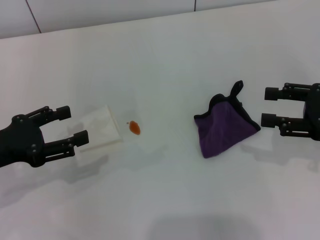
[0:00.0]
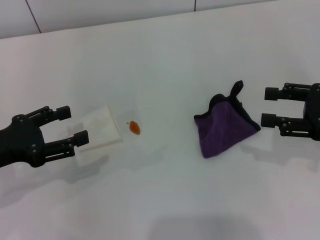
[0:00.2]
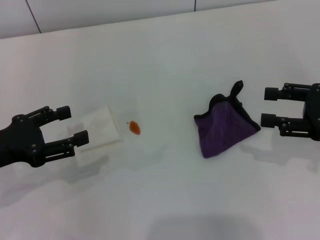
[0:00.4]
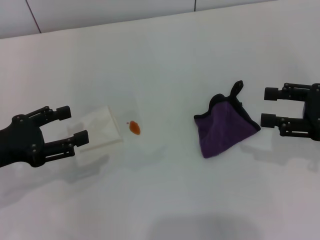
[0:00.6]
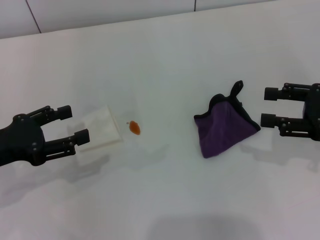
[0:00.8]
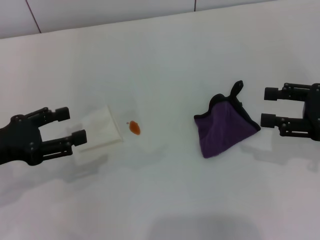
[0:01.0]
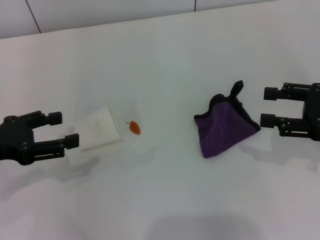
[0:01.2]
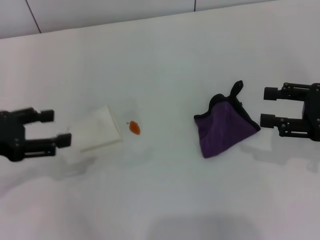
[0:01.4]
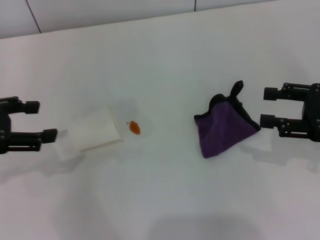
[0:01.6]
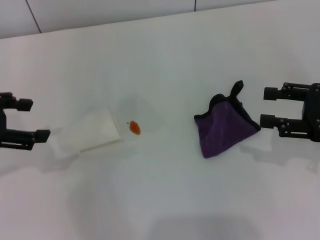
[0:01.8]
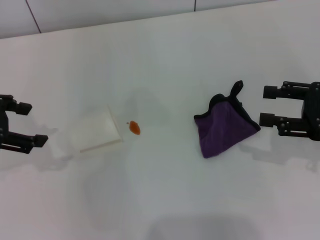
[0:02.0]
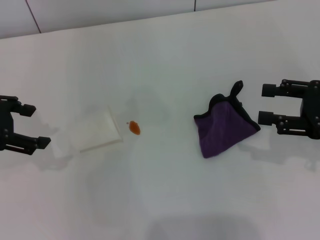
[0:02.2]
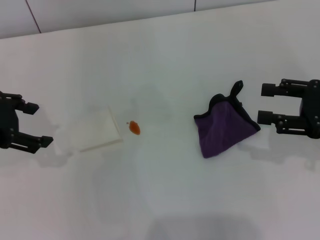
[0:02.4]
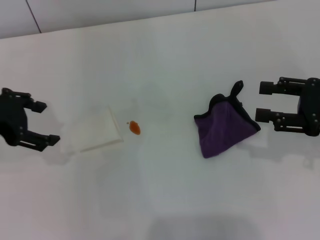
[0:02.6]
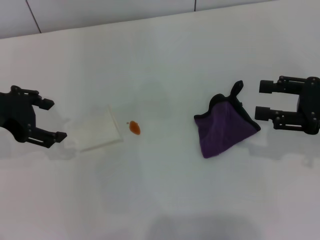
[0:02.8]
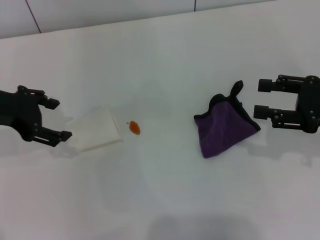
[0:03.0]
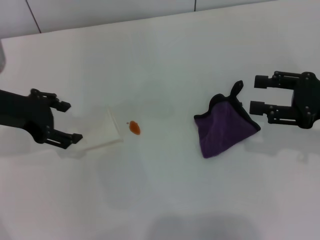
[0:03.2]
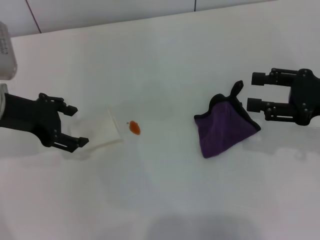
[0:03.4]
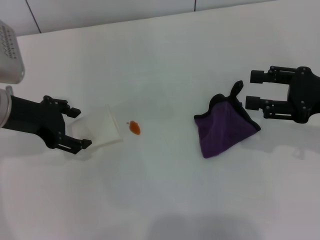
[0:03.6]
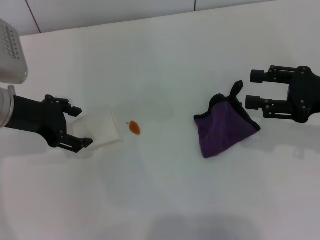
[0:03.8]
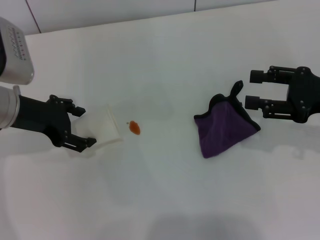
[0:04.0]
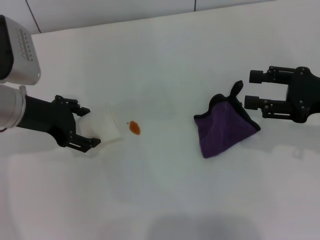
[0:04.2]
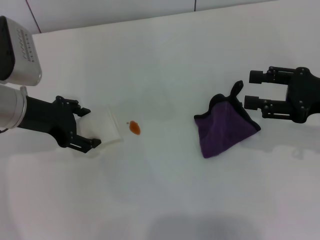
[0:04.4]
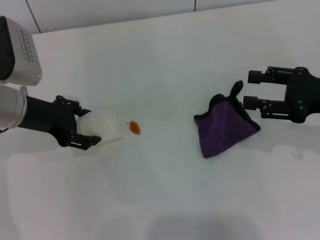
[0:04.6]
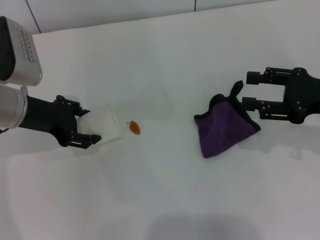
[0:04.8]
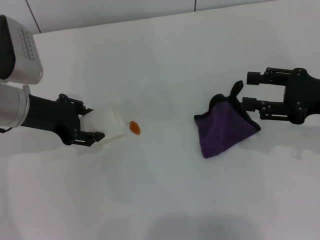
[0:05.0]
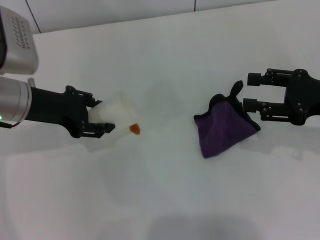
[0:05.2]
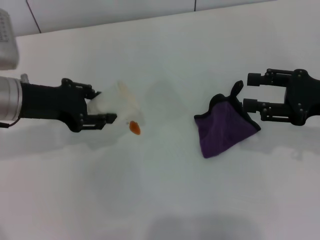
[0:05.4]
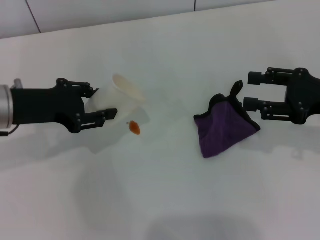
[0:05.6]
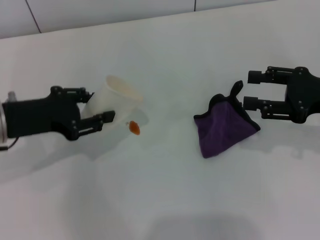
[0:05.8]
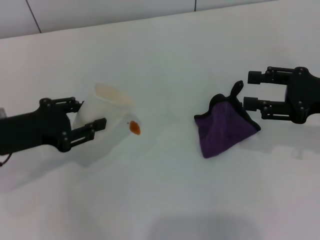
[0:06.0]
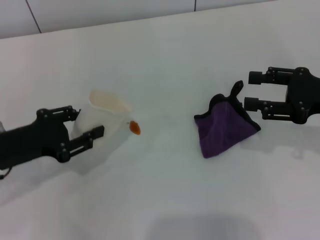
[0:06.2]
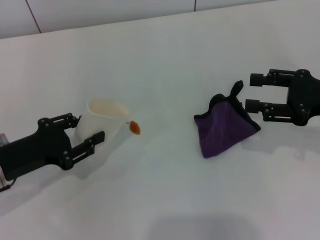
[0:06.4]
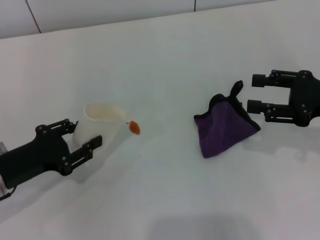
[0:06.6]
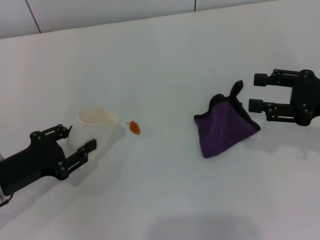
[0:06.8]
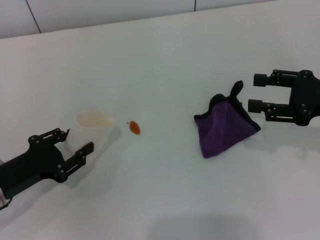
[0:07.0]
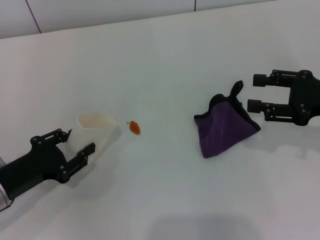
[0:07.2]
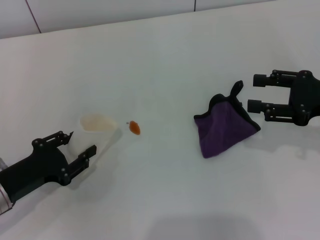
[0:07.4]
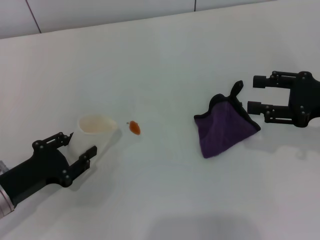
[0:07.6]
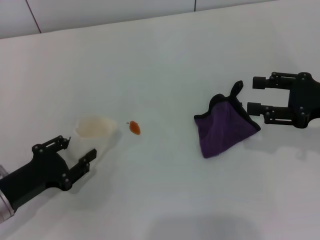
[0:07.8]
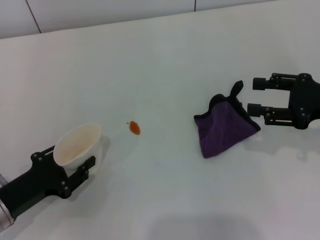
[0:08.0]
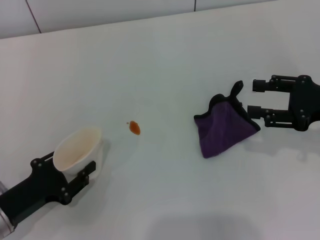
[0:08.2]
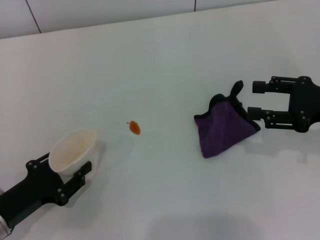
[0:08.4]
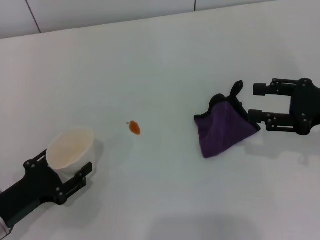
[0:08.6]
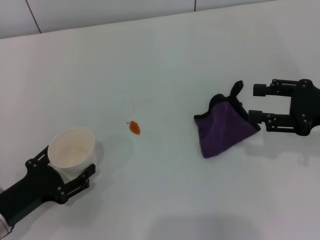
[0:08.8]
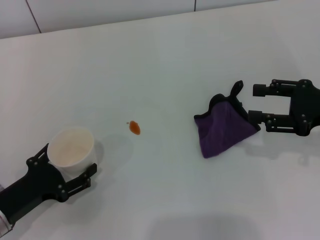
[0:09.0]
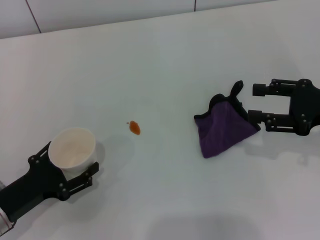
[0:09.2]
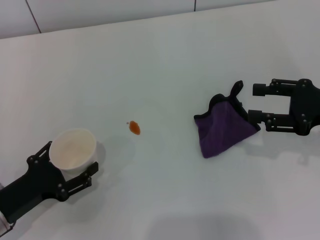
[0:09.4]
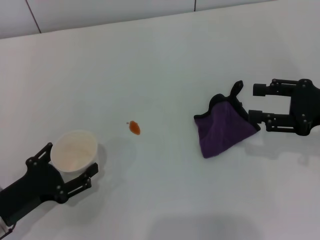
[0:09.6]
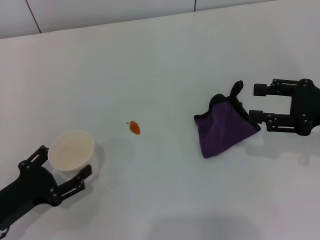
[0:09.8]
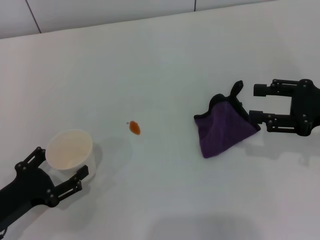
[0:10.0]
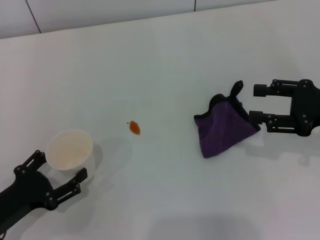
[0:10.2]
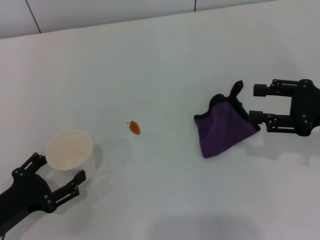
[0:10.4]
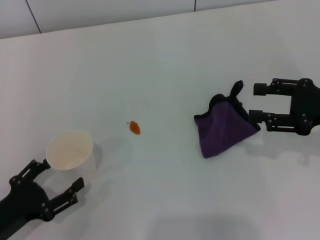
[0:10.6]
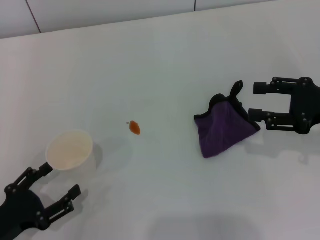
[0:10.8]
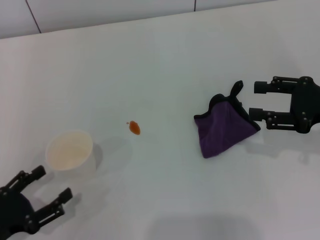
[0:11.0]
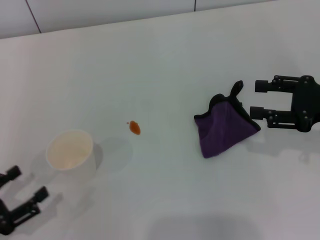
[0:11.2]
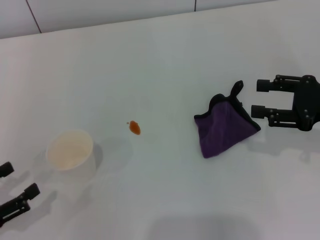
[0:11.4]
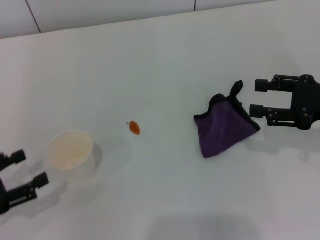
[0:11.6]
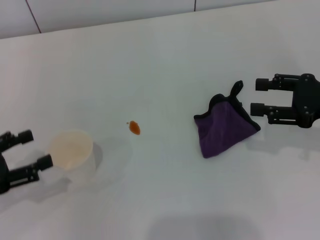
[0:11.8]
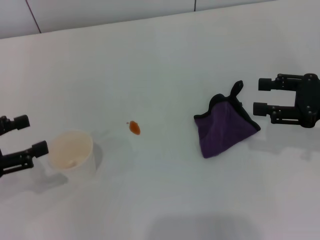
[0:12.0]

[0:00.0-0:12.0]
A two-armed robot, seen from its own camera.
Step, 0:00.0 to 0:04.8: Grasp the paper cup with the left gripper.
Step, 0:05.0 to 0:10.6: Stand the paper cup upright with the left gripper.
0:00.0 to 0:01.6: The left gripper shifts roughly 5 cm upward.
0:01.6 to 0:03.0: The left gripper is displaced forward and to the right by approximately 10 cm.
0:03.0 to 0:04.4: The left gripper moves about 5 cm.
0:04.4 to 0:06.0: The left gripper shifts approximately 5 cm backward, and closes.
0:06.0 to 0:07.6: The left gripper goes approximately 10 cm downward and backward.
0:07.6 to 0:09.0: The left gripper opens.
0:09.0 to 0:10.4: There are only small adjustments of the grippers.
0:10.4 to 0:12.0: The left gripper heads upward, forward and to the left, covering about 15 cm.

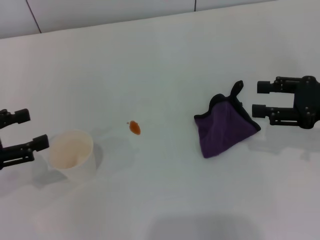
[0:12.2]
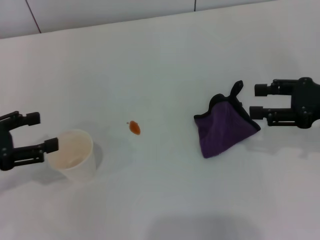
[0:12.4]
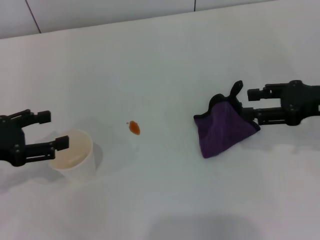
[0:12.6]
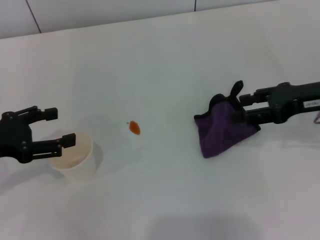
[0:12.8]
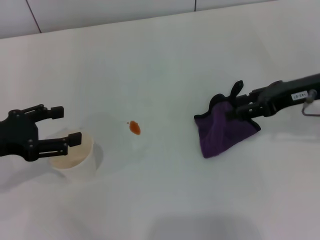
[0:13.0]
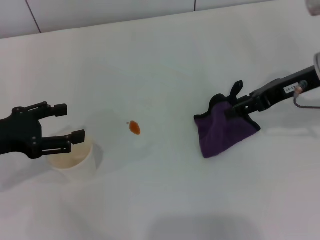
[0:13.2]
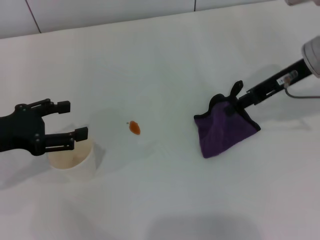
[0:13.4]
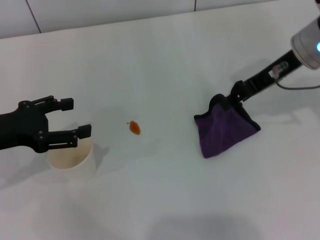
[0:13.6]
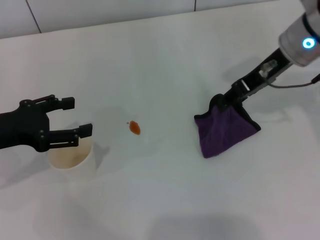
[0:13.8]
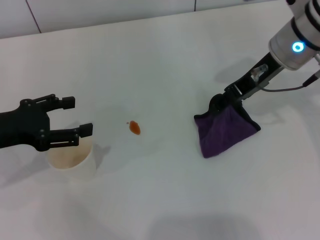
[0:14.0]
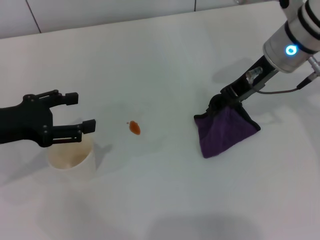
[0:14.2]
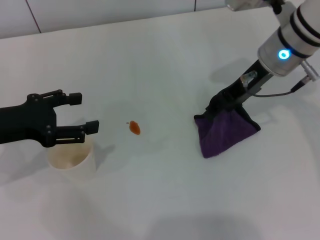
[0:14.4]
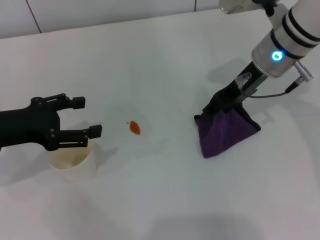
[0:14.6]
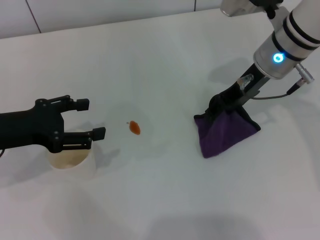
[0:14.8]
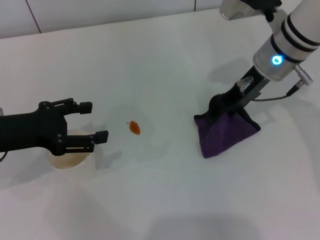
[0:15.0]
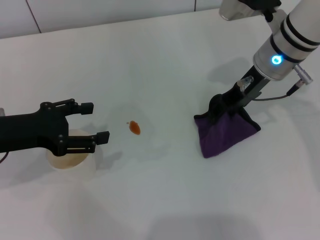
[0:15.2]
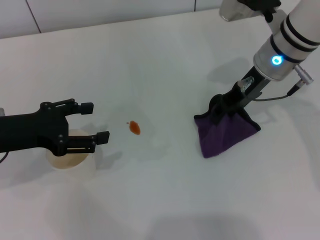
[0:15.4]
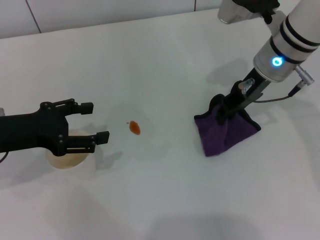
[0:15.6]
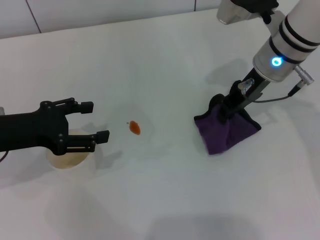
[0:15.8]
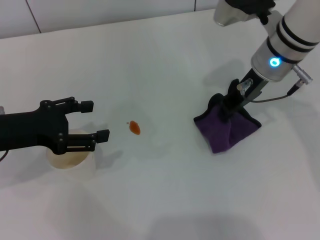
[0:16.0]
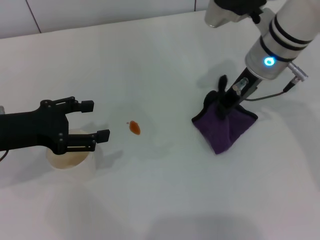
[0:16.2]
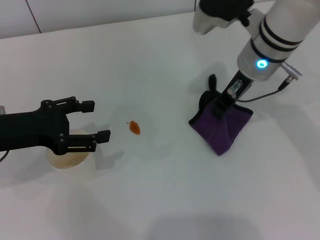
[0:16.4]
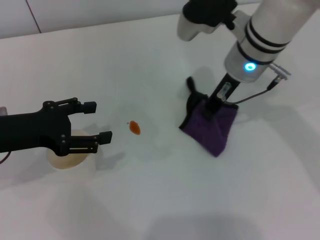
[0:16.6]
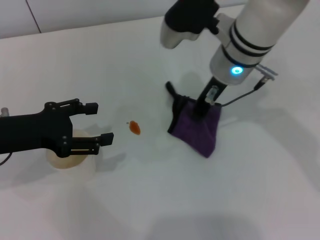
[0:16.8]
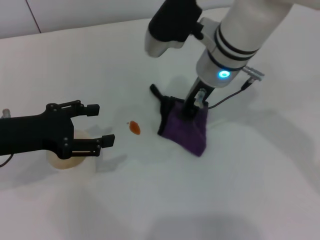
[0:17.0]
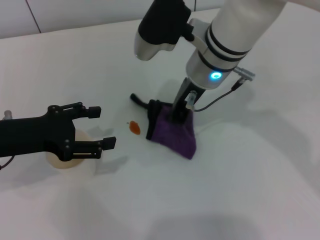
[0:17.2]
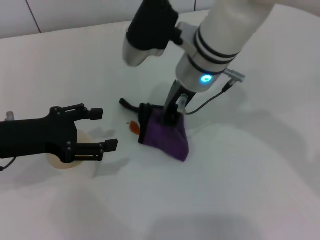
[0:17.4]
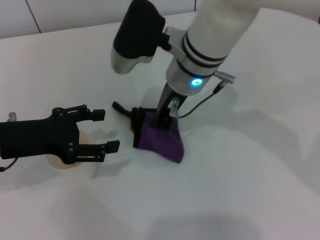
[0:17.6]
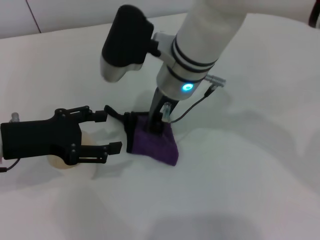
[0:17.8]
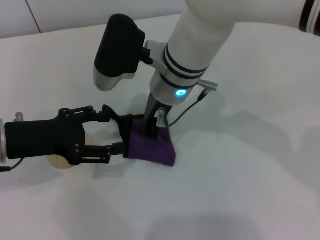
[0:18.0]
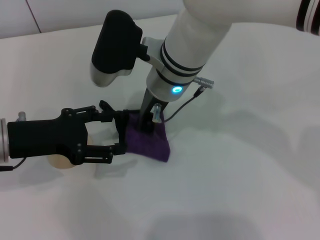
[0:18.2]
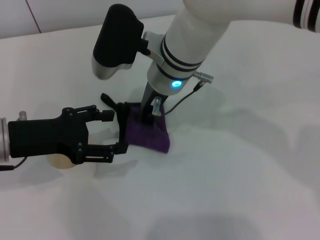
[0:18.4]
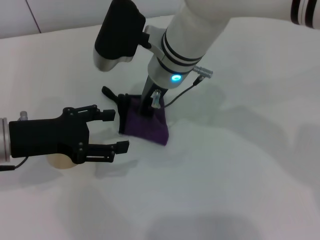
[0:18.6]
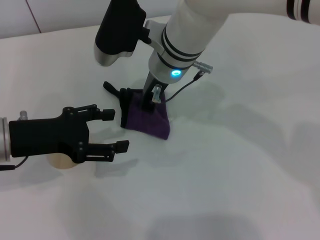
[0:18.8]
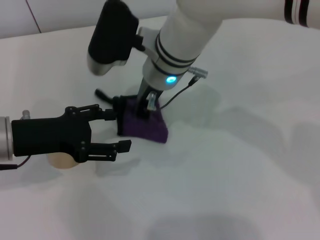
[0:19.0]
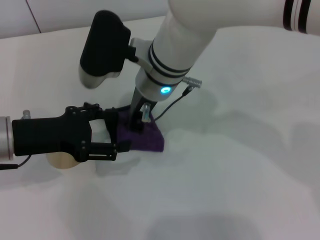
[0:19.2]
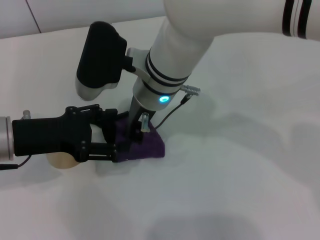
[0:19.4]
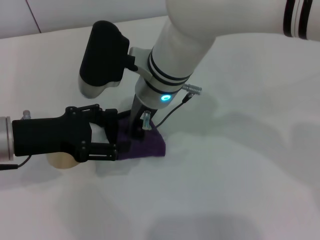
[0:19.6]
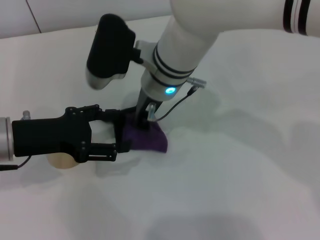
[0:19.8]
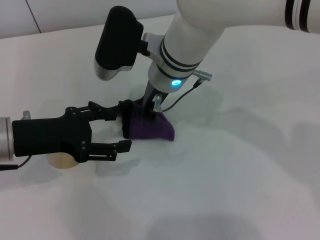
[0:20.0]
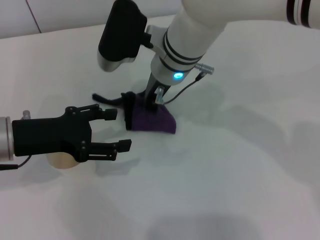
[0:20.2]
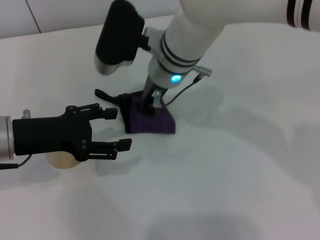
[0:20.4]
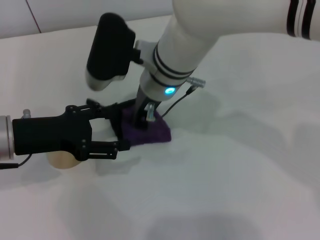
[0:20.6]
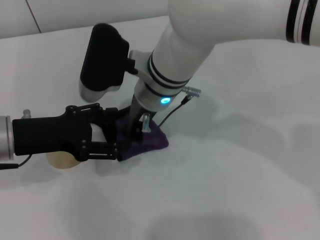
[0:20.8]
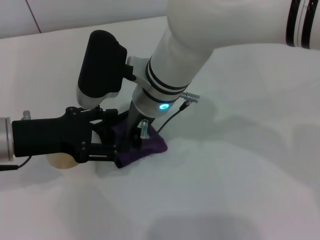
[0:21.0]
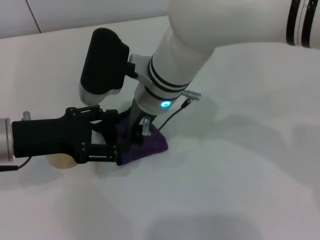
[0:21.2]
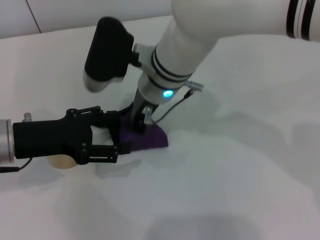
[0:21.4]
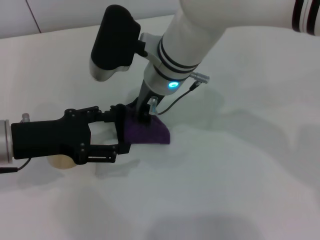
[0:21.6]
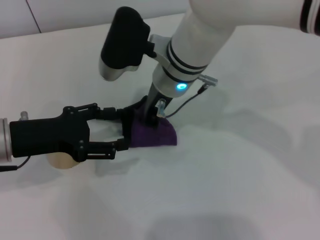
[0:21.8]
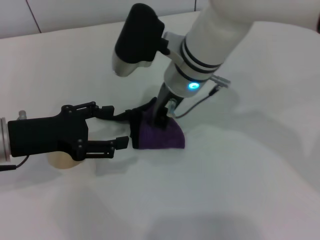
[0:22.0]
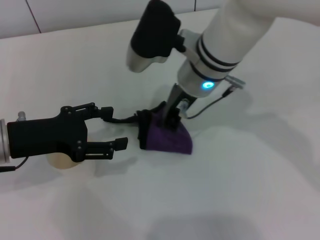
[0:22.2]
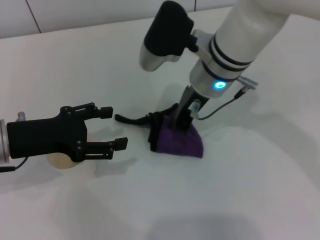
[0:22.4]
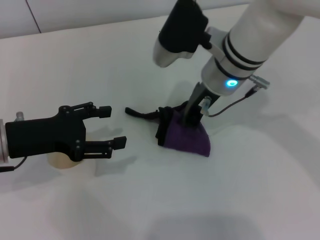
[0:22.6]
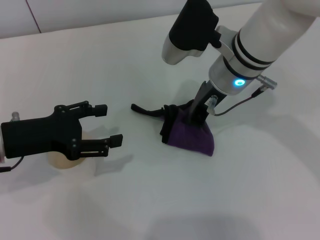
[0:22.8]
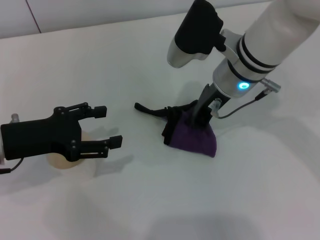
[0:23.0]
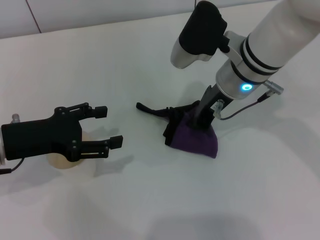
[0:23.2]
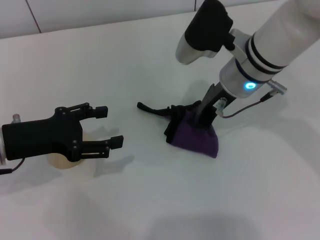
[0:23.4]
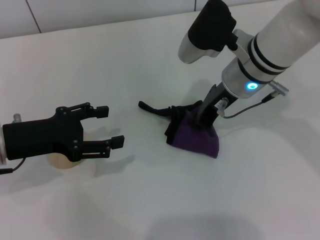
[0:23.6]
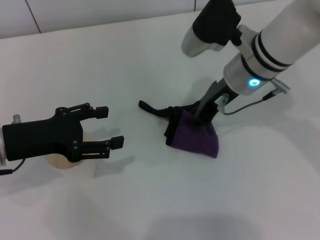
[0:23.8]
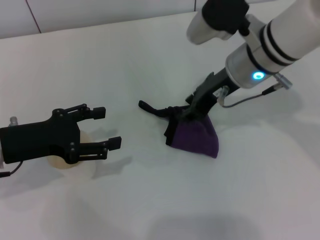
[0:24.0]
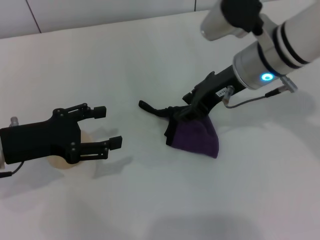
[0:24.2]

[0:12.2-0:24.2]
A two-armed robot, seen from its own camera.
Step, 0:12.2 to 0:15.6: Grasp the rag with the right gripper.
Step, 0:15.8 to 0:23.0: Wipe the stains off the table with the right gripper.
0:12.2 to 0:13.8: The right gripper goes roughly 15 cm to the left, forward and upward, while the left gripper shifts approximately 5 cm to the right.
0:13.8 to 0:15.2: There are only small adjustments of the grippers.
0:15.2 to 0:16.6: The right gripper travels to the left by some 5 cm, and closes its fingers.
0:16.6 to 0:18.2: The right gripper travels to the left by roughly 10 cm.
0:18.2 to 0:21.2: There are only small adjustments of the grippers.
0:21.2 to 0:22.6: The right gripper moves to the right, approximately 10 cm.
0:22.6 to 0:24.2: The right gripper moves to the right, some 5 cm, and opens.
